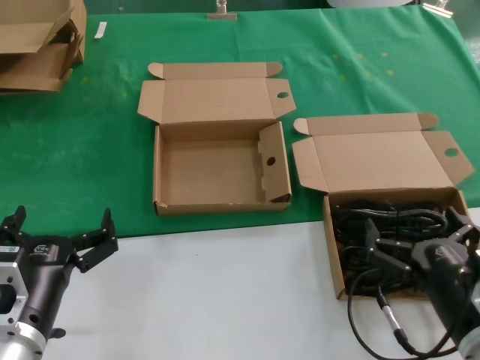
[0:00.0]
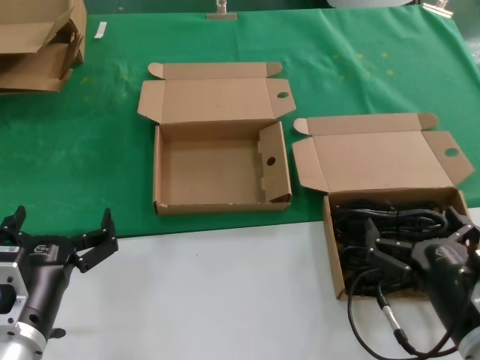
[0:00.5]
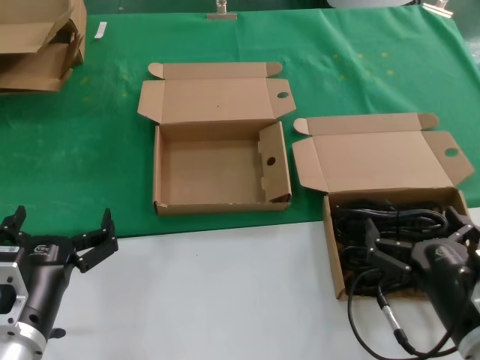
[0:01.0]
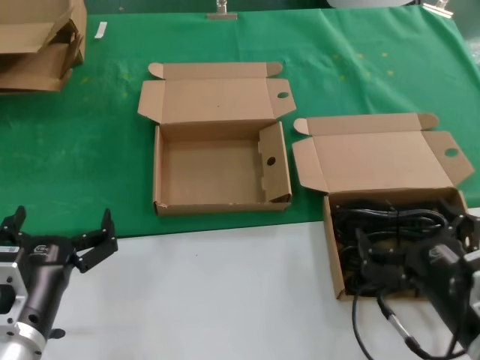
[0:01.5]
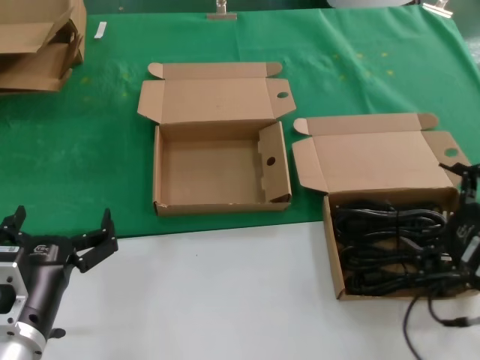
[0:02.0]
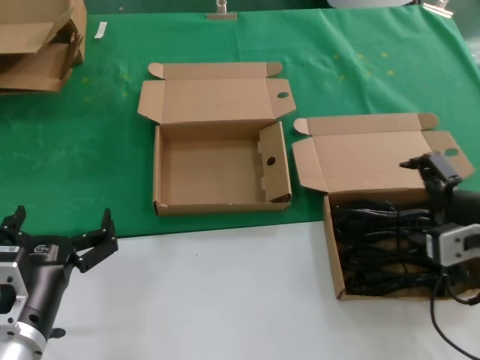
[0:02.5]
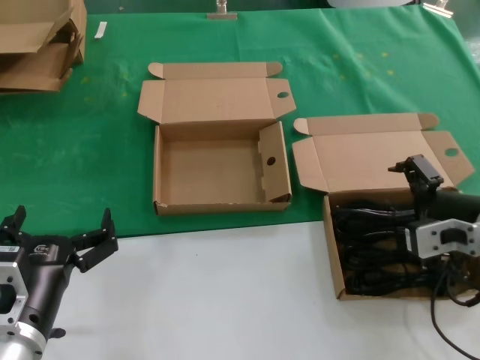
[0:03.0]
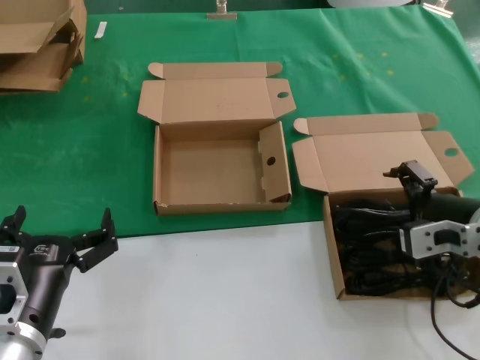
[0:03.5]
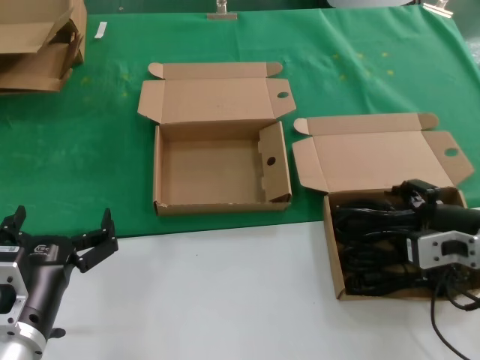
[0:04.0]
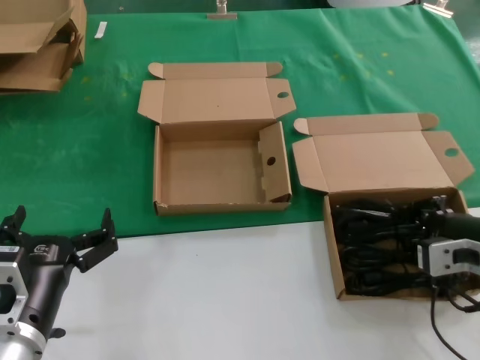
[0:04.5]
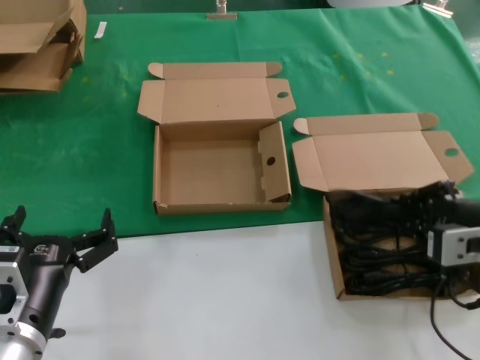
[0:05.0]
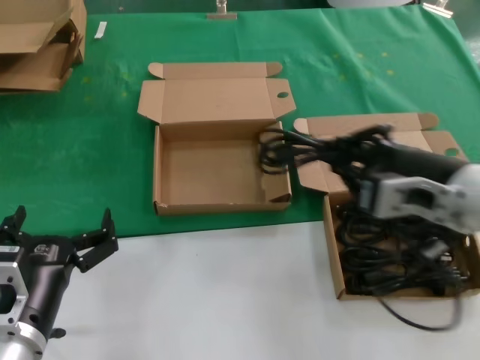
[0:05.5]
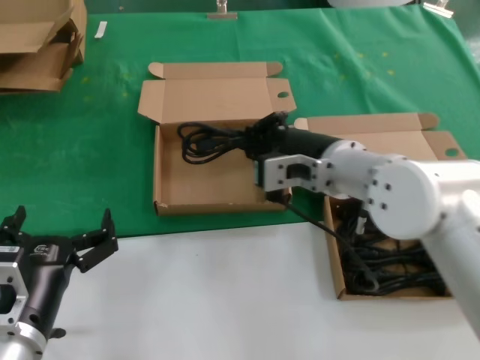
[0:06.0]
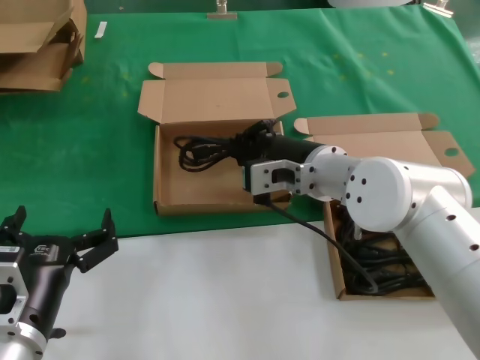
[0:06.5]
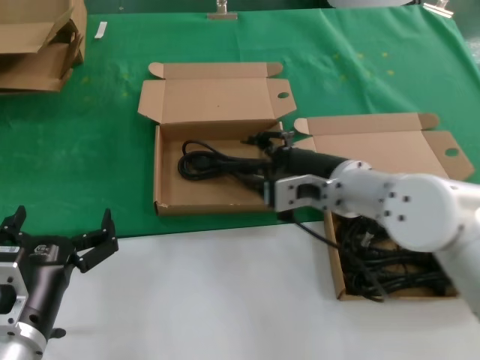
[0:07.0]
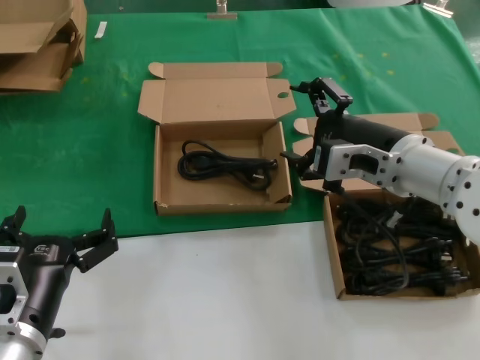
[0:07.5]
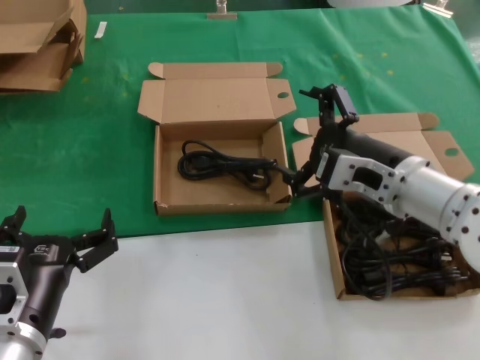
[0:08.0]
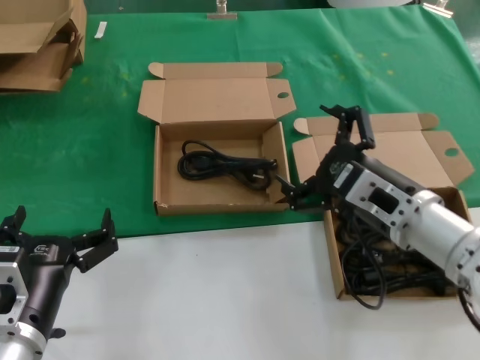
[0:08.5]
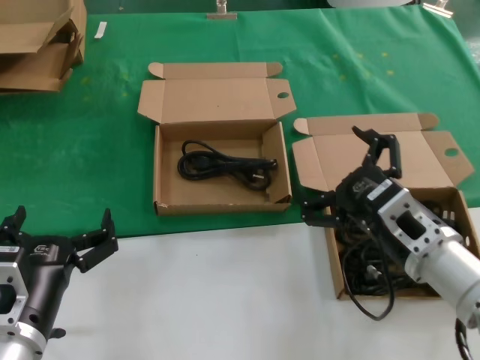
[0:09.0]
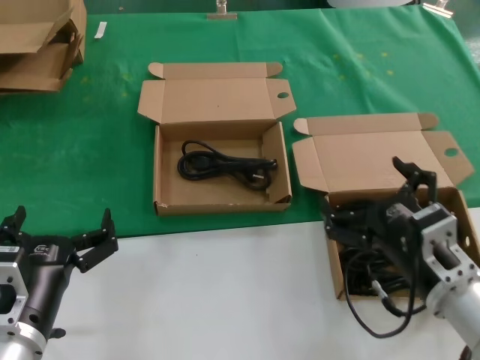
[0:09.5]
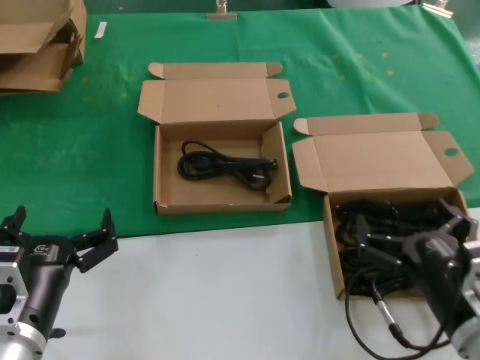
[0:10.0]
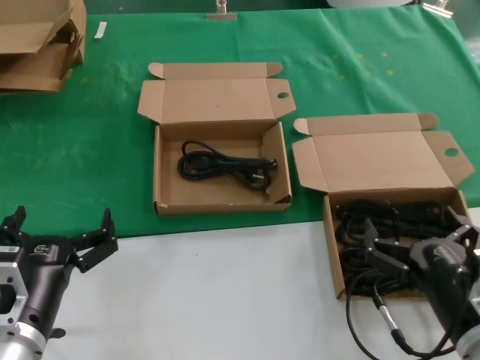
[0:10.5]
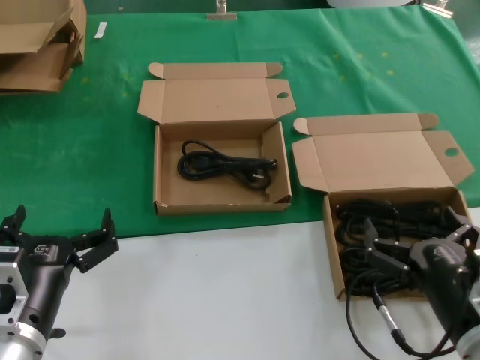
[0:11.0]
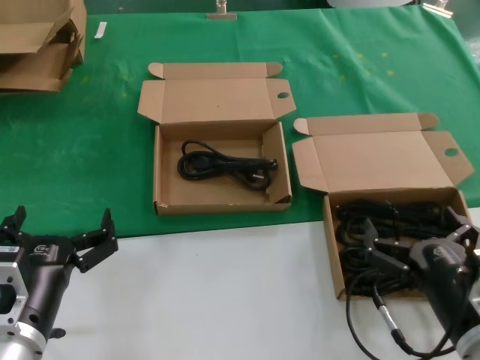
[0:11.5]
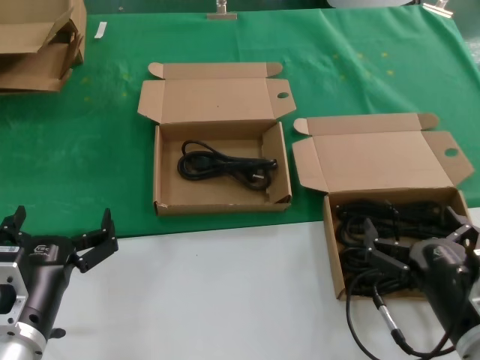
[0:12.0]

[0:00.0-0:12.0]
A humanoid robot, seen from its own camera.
Task of the whole recording: take the parts from the box containing them and put them into an empty box.
Step, 0:00.0 to 0:04.0: Grasp the data cable.
Step, 0:04.5 to 0:06.5: Place the data cable in the another box.
0:00.0 to 0:02.0: The right hand heads upward and to the right, covering roughly 10 cm.
0:02.0 to 0:04.0: The right hand shifts approximately 10 cm forward.
0:04.0 to 0:06.0: The right hand travels to the left by some 15 cm.
0:06.0 to 0:08.0: The right hand shifts roughly 5 cm to the right.
0:08.0 to 0:10.0: The right hand travels downward and backward by some 20 cm.
0:10.0 to 0:12.0: Neither hand changes place.

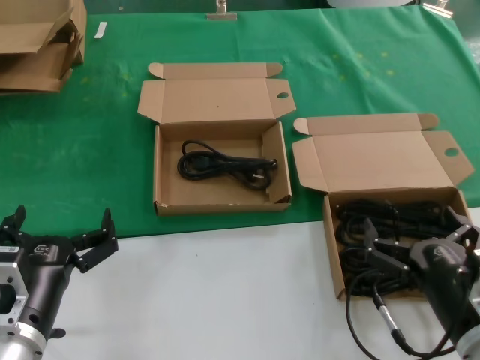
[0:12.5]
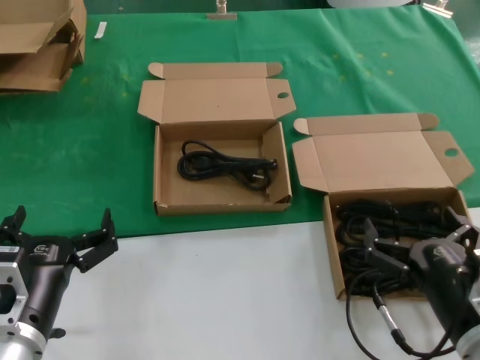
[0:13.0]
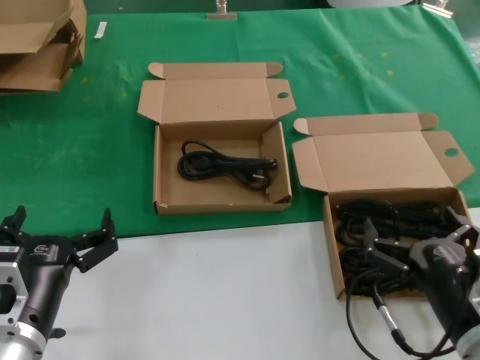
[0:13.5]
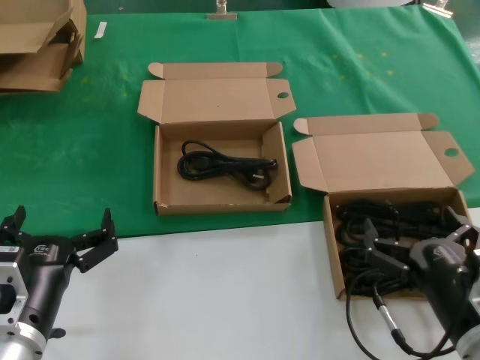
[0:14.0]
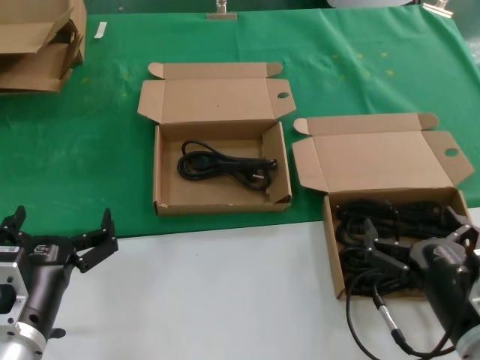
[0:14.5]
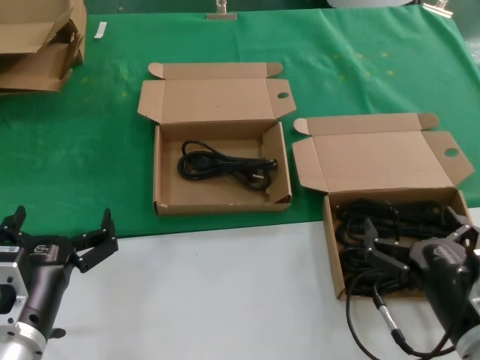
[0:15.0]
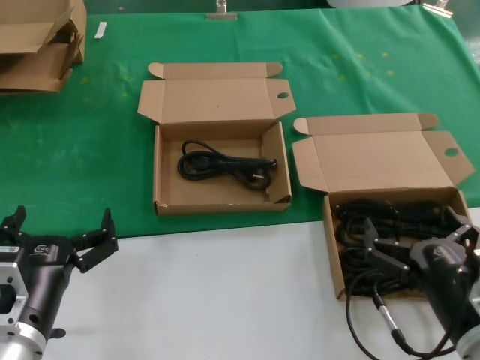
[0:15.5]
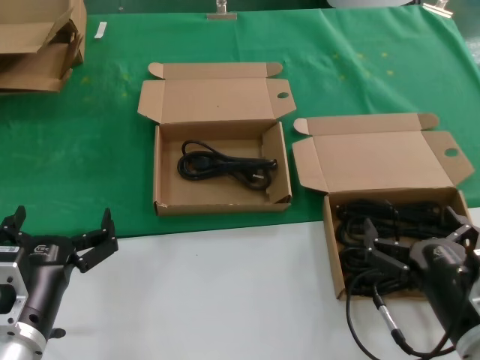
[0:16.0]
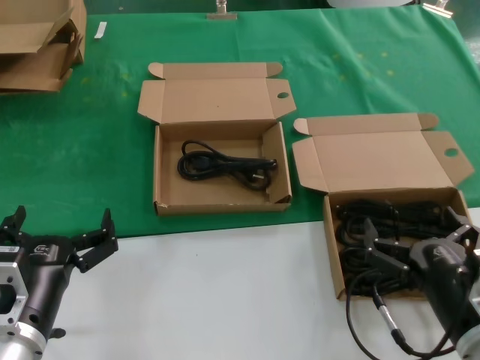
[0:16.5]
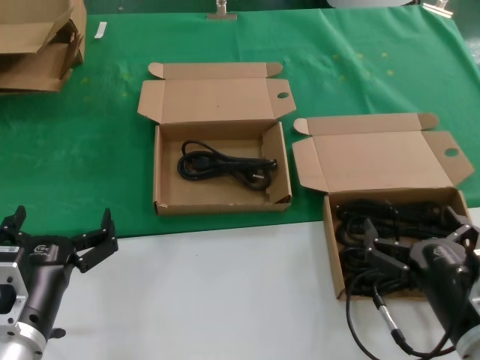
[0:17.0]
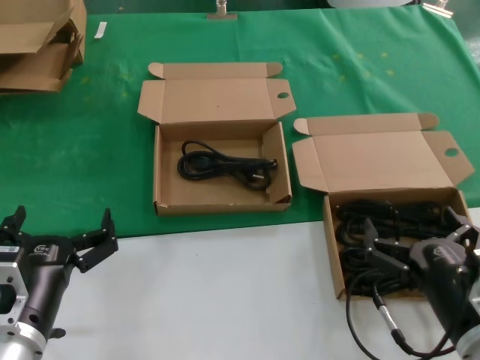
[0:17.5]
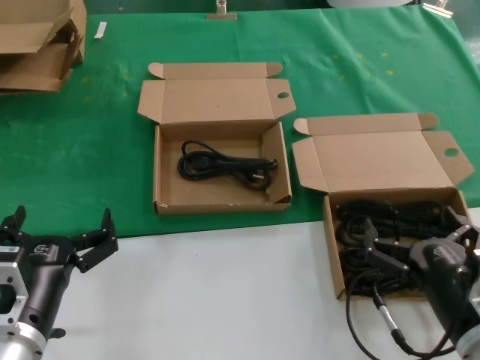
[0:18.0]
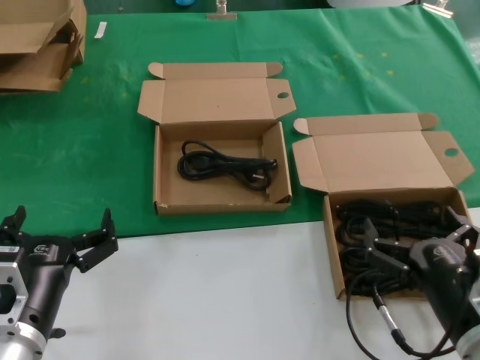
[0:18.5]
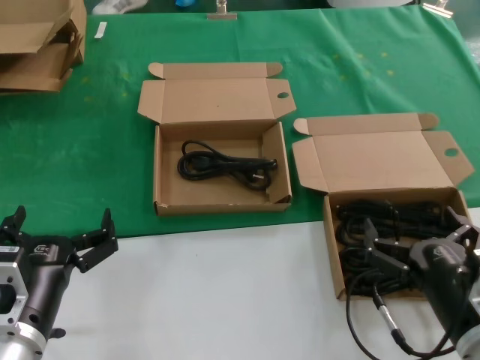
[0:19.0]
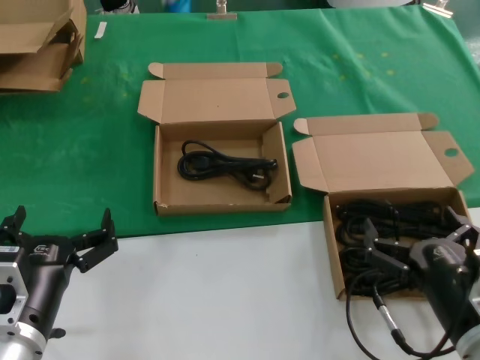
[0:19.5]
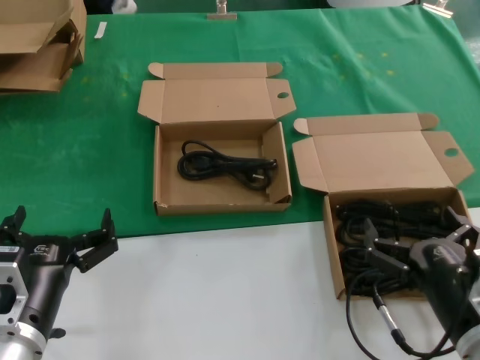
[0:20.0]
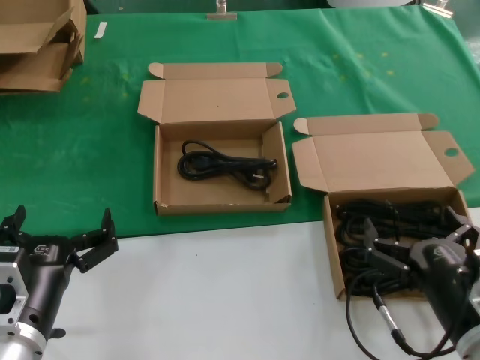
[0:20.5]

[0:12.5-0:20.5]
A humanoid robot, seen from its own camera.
Task of the whole recording: take the parts from the box containing them and put them into an empty box.
0:12.5 to 0:20.5: Neither hand changes place.

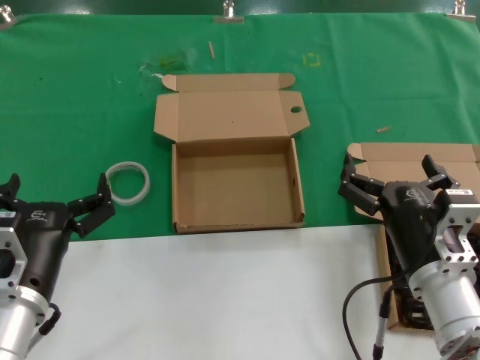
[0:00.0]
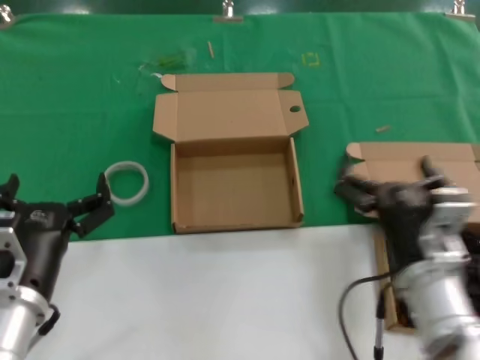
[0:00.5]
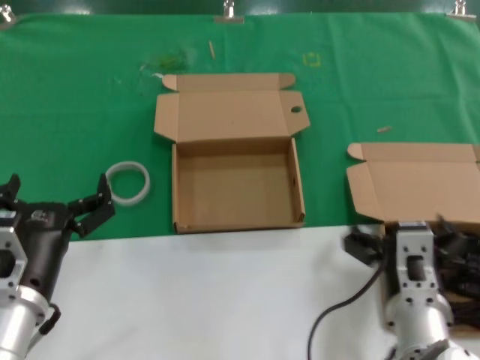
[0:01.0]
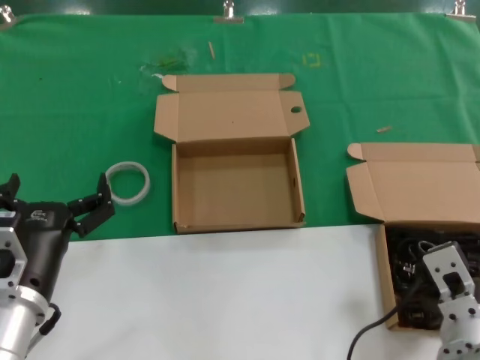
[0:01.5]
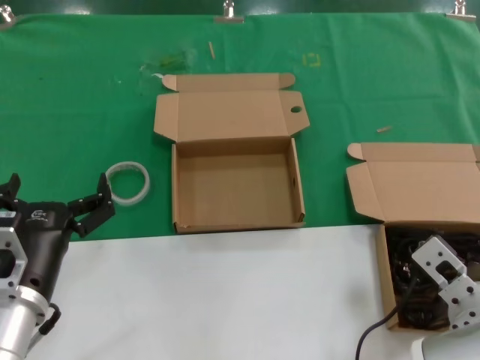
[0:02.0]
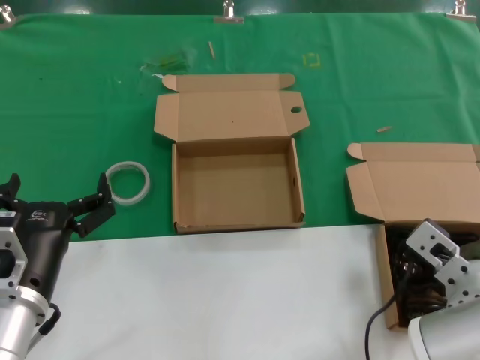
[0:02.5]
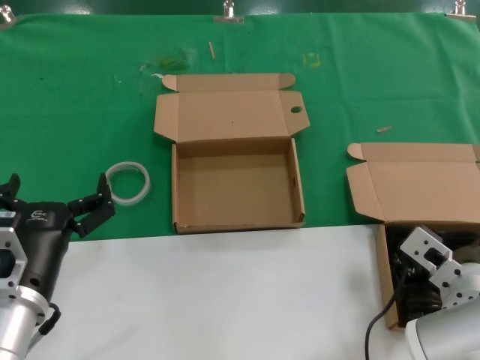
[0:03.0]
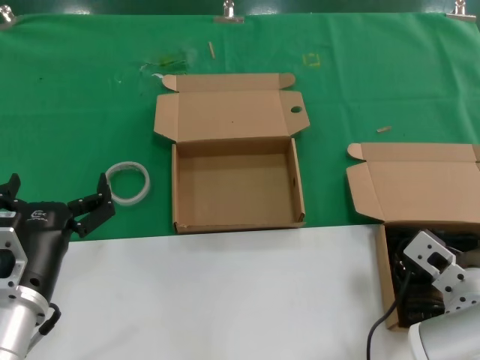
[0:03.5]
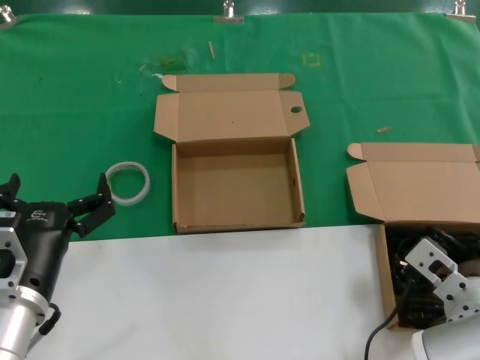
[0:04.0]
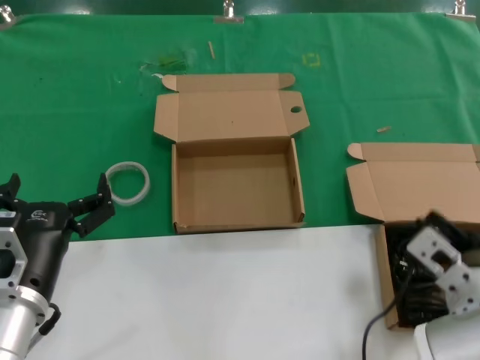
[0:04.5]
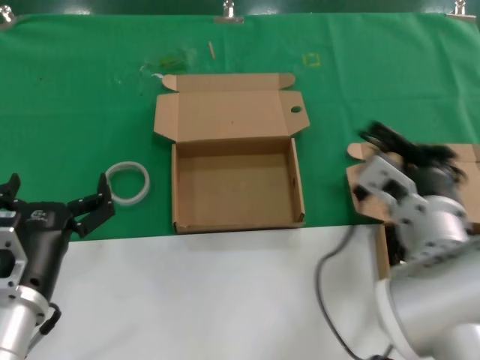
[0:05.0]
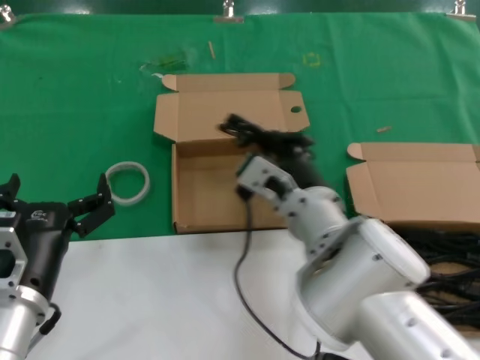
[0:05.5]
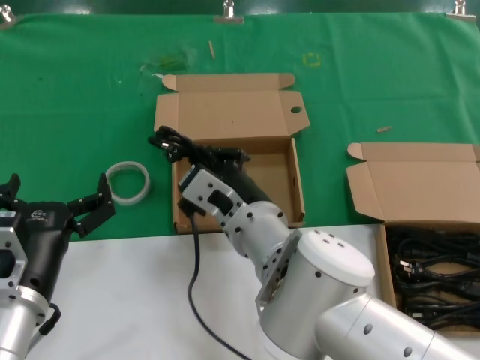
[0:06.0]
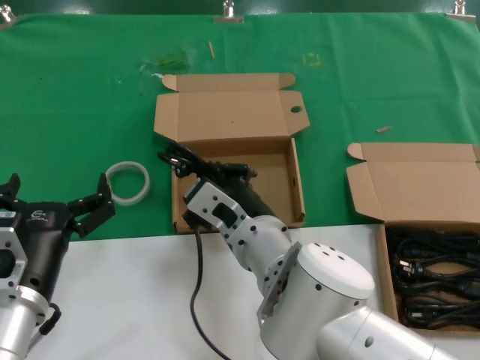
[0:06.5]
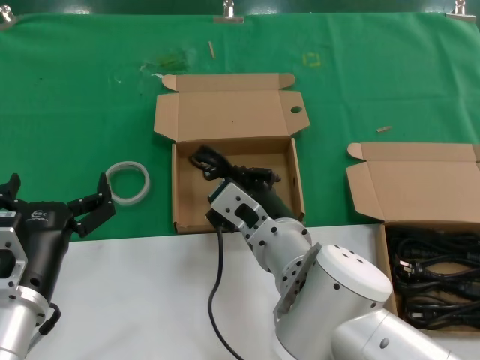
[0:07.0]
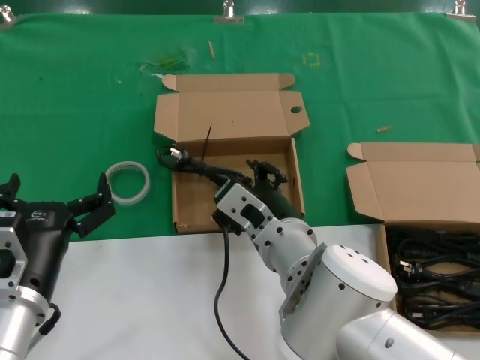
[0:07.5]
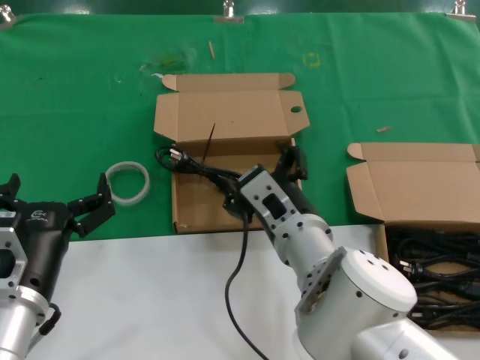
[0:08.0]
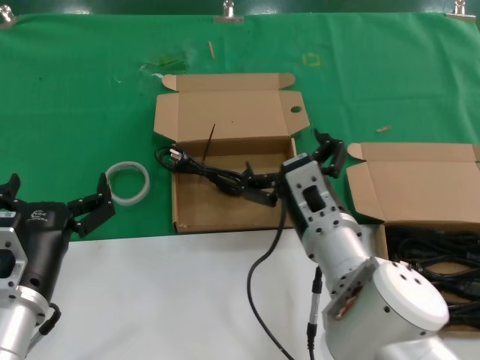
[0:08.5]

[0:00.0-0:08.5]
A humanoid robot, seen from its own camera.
Task of the whole recording: take the parts from the box containing them and put them into an empty box.
Step, 0:00.0 to 0:04.0: Grasp the data cable.
Step, 0:04.5 to 0:07.5: Place the data cable in the another box.
0:02.0 to 0:04.0: The hands make only small movements.
0:04.0 to 0:06.5: The right hand moves to the left, roughly 20 cm.
0:06.5 to 0:08.5: The right hand is displaced to the right by about 10 cm.
